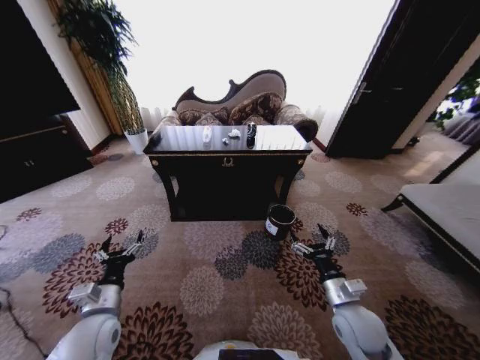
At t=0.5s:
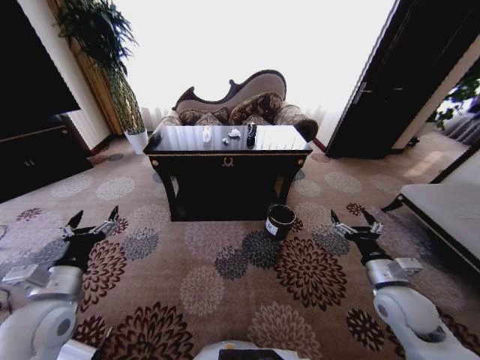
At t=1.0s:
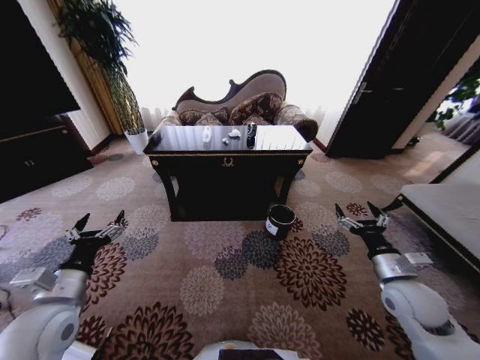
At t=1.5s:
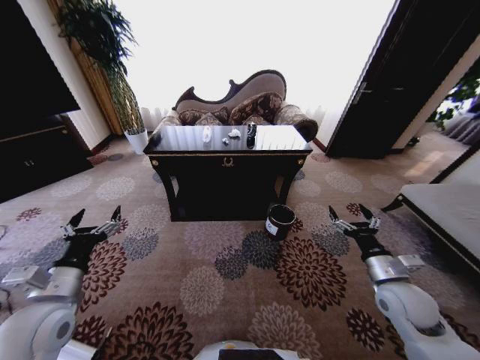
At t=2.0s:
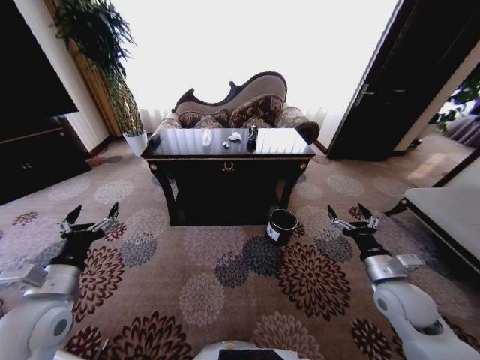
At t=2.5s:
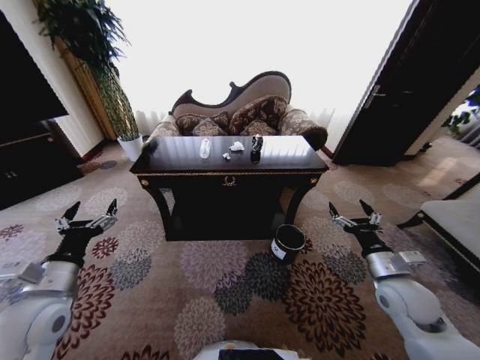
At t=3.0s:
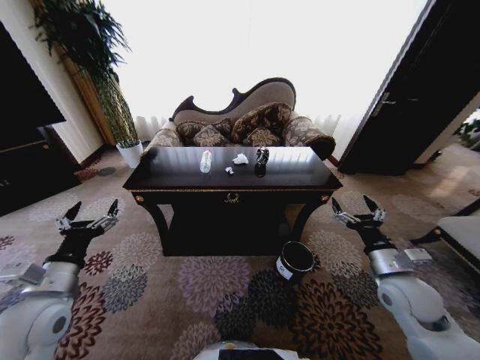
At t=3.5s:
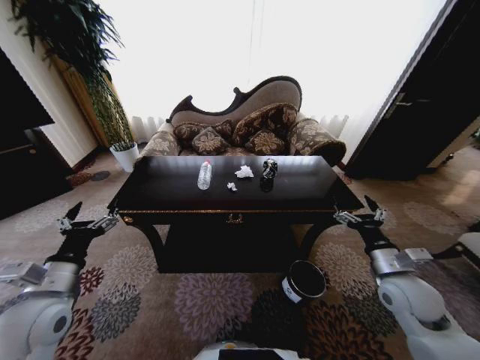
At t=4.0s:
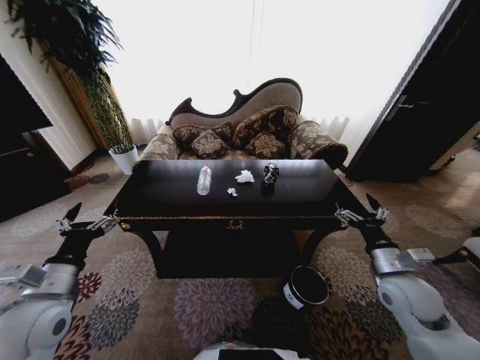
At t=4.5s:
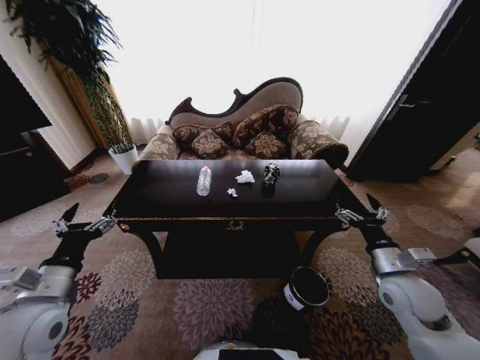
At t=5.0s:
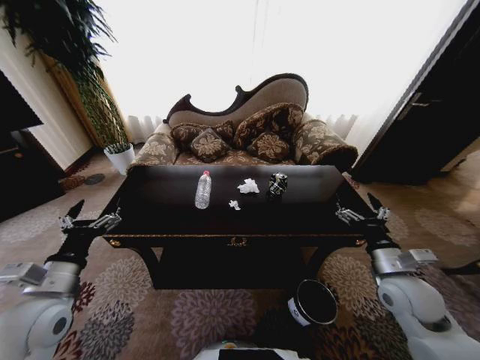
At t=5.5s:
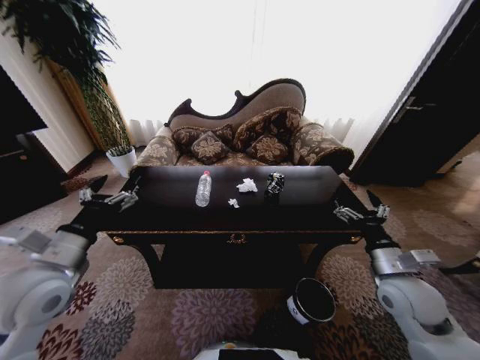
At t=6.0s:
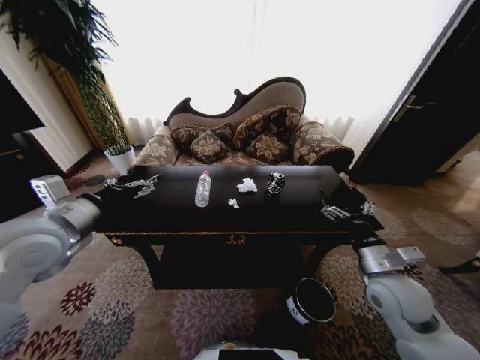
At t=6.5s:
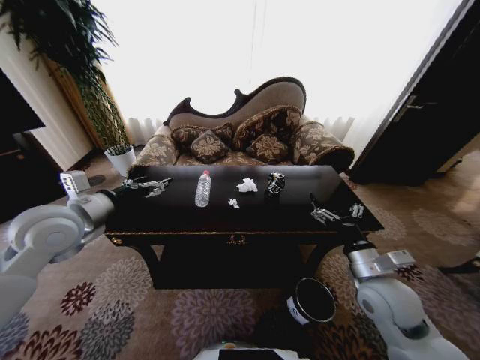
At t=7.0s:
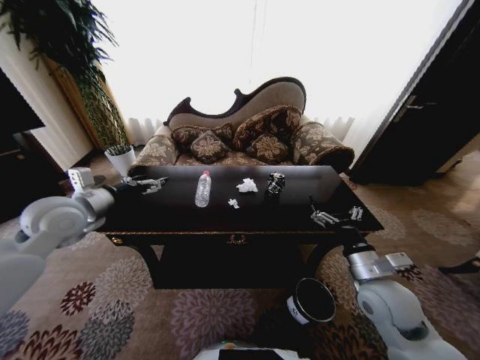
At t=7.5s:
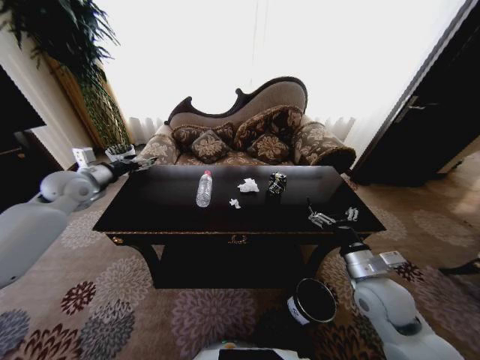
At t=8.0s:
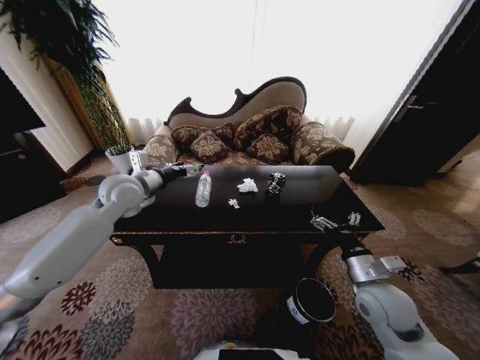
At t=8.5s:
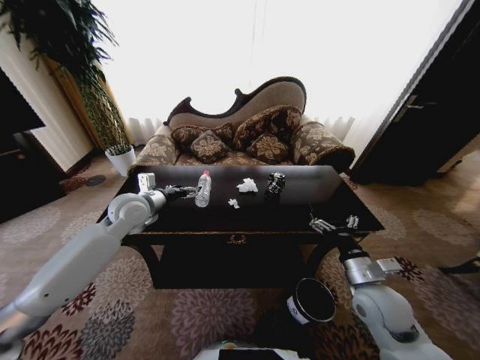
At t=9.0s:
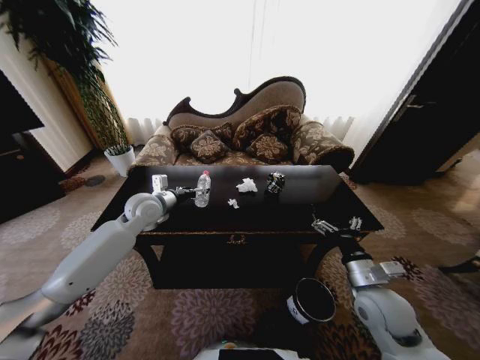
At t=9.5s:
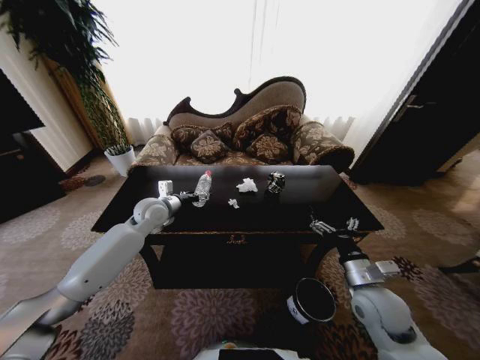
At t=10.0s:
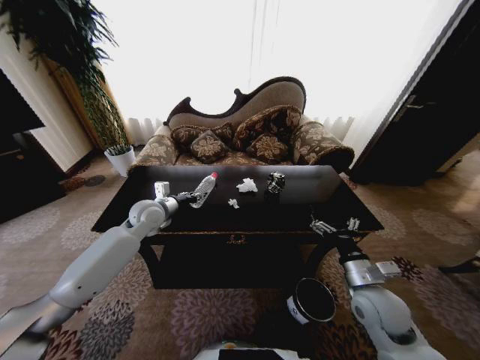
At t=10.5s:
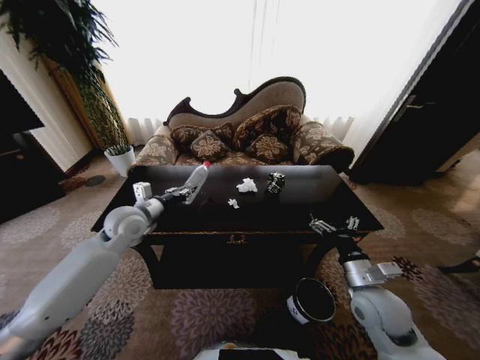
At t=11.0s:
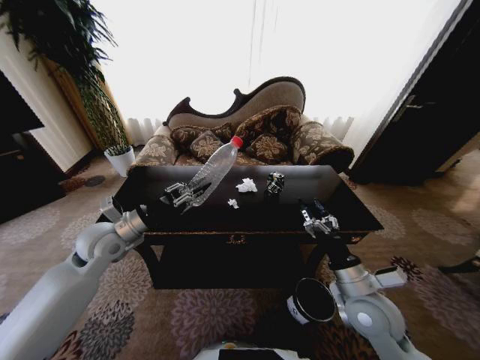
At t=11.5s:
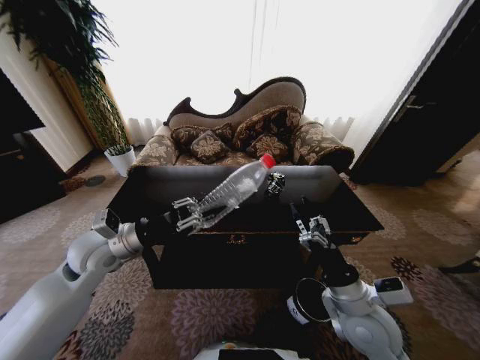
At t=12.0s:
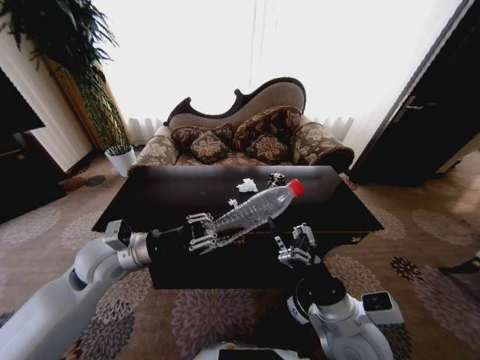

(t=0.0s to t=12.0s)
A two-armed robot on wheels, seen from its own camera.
Task of the whole recording: Move to the front of the table and place the trash on the table into the trash bin.
t=4.0s - t=6.0s: The left gripper heads upward and forward, covering some 15 cm.
t=6.0s - t=8.0s: The left gripper moves forward and to the right, approximately 20 cm.
t=8.0s - t=10.0s: The left gripper heads downward, covering about 10 cm, and closes its fingers.
t=10.0s - t=12.0s: The left gripper shifts about 15 cm backward; the right gripper is displaced to the left and backward by approximately 10 cm.

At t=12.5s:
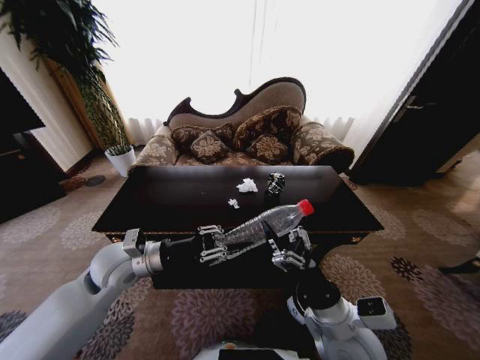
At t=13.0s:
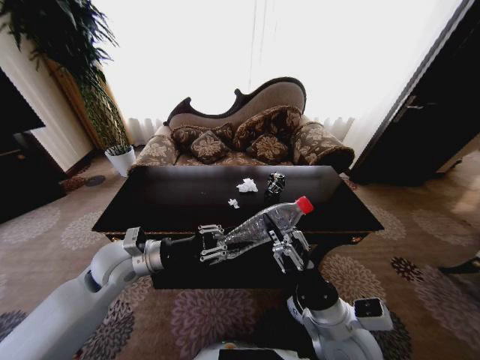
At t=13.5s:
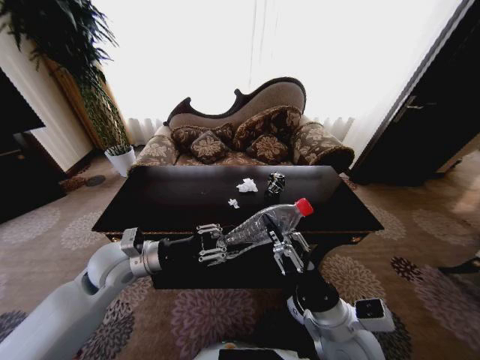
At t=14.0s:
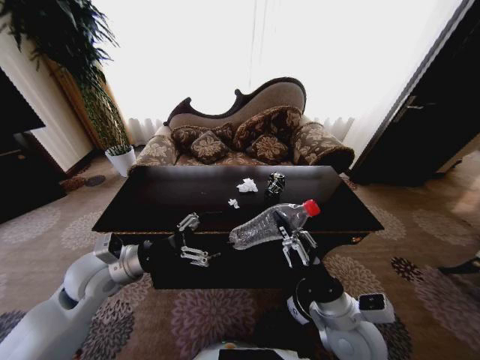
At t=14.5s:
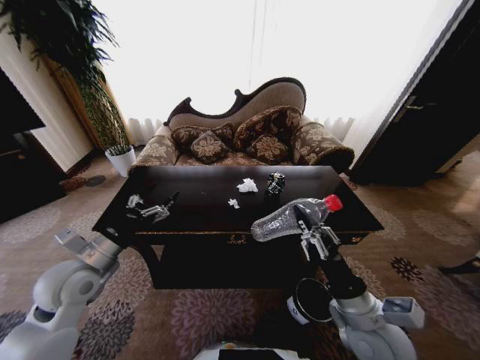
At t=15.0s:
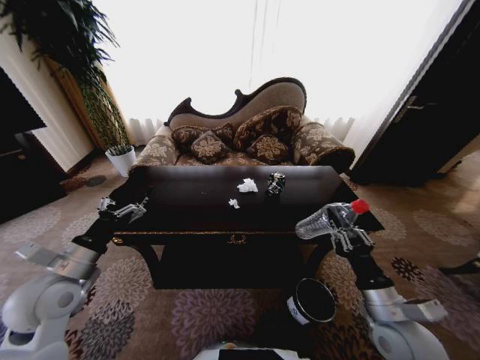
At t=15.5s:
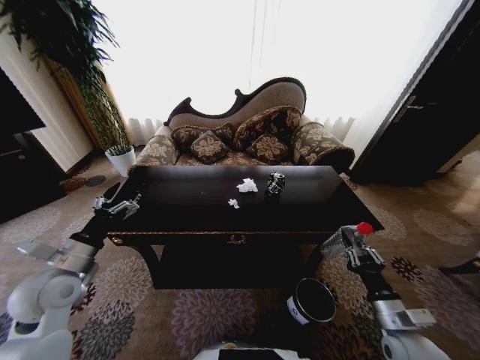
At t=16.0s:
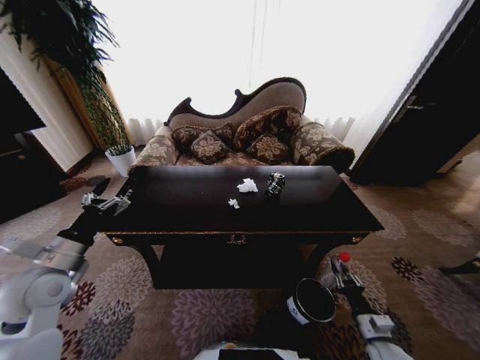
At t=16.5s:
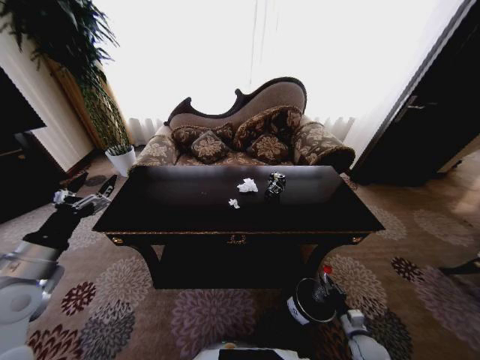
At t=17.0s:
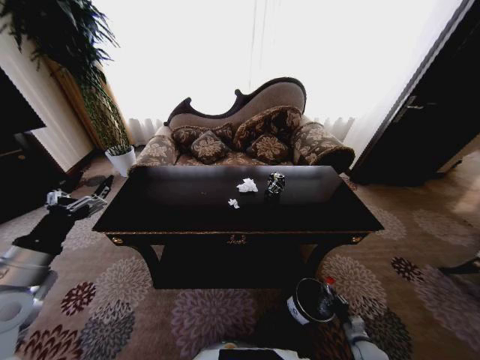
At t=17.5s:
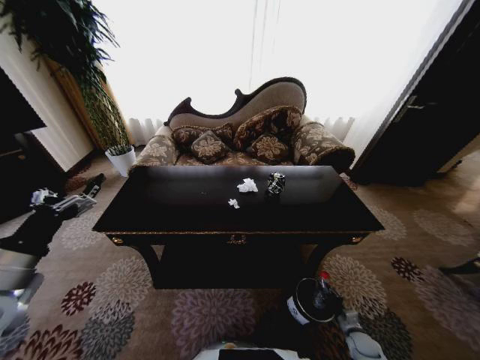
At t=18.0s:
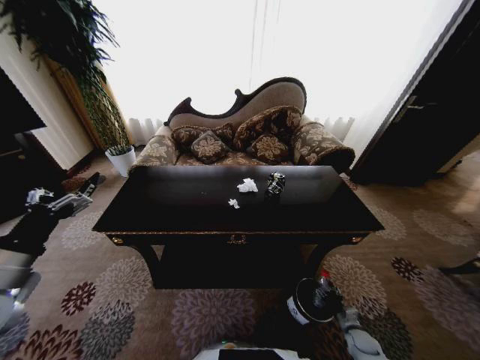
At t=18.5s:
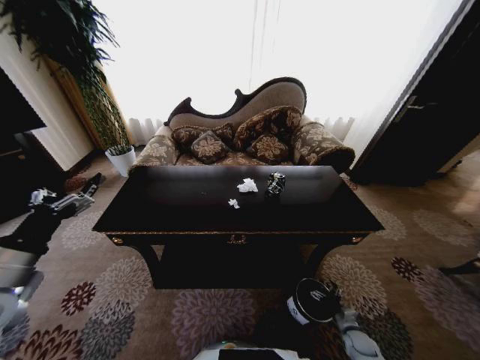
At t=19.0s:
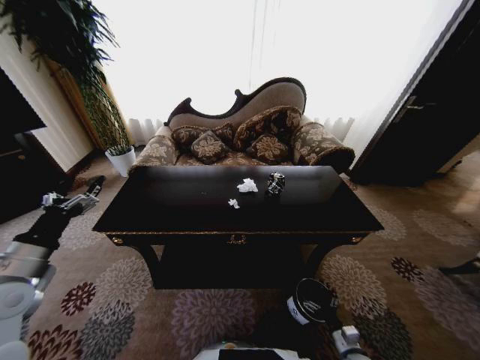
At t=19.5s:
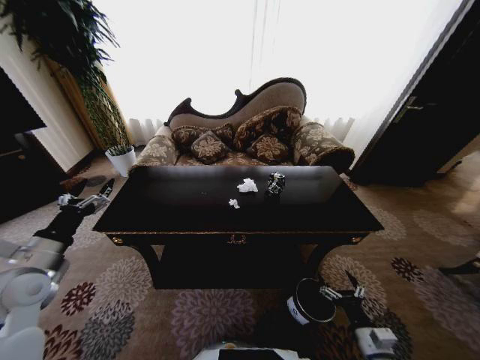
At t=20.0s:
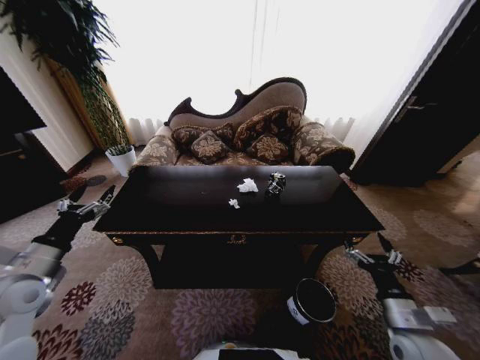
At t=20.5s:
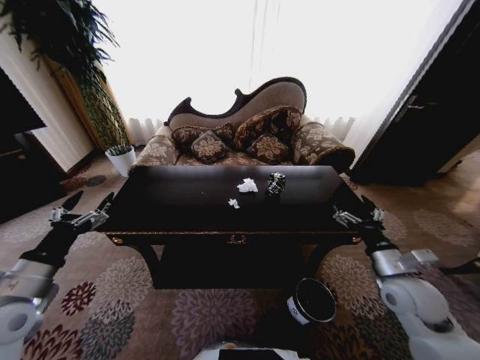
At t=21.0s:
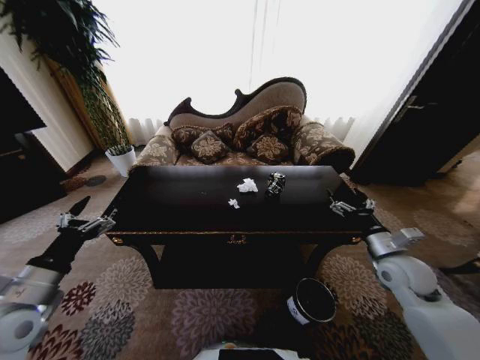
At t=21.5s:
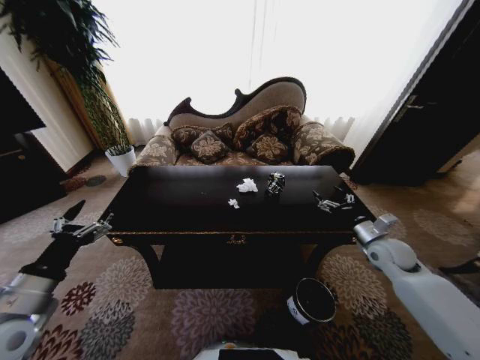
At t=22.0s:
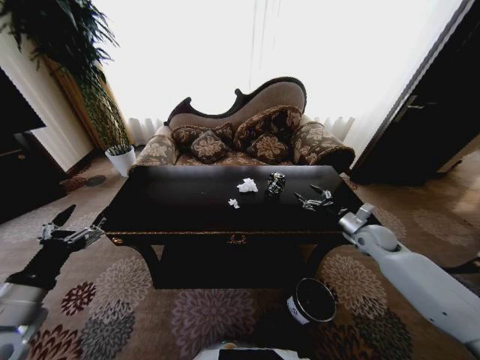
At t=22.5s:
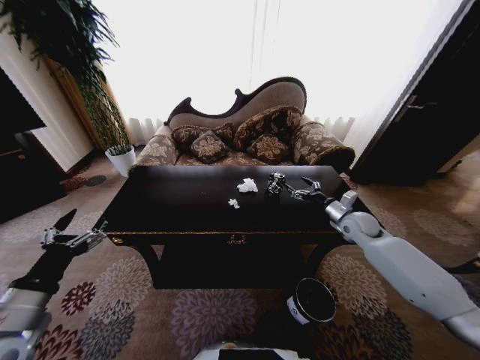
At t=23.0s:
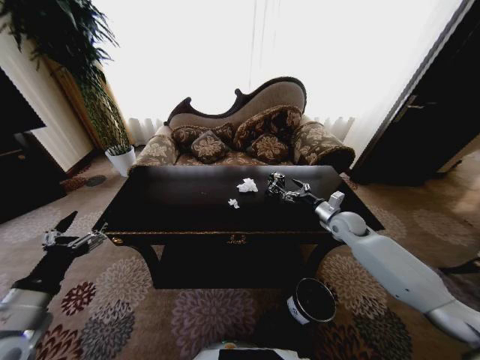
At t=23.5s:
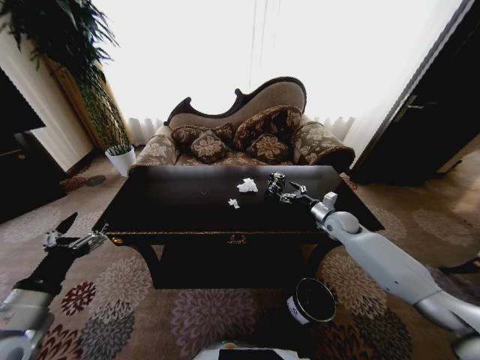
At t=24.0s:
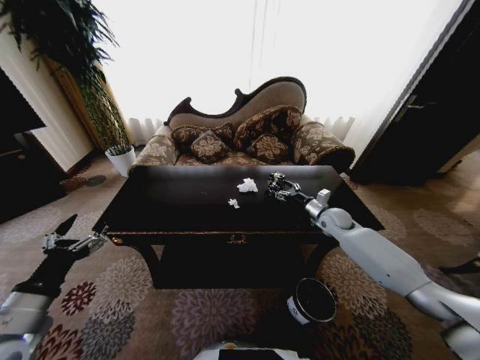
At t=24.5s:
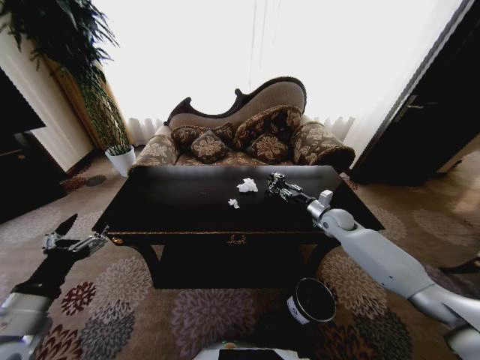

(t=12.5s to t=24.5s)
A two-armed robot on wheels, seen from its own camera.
Task of the whole recording: Move to the front of the table and place the trash on the table into the trash bin.
t=12.5s - t=14.5s: The right gripper is displaced to the right by about 5 cm, and closes its fingers, while the left gripper heads to the left, covering roughly 10 cm, and opens up.
t=14.5s - t=16.5s: The right gripper travels downward and to the right by about 35 cm; the left gripper moves to the left, some 5 cm.
t=16.5s - t=18.5s: The right gripper heads downward, covering some 5 cm, and opens its fingers.
t=18.5s - t=20.5s: The right gripper heads upward, covering approximately 35 cm.
t=20.5s - t=22.5s: The right gripper shifts some 20 cm forward, while the left gripper changes place by some 5 cm.
t=22.5s - t=24.5s: The right gripper changes place by about 5 cm, and closes up.

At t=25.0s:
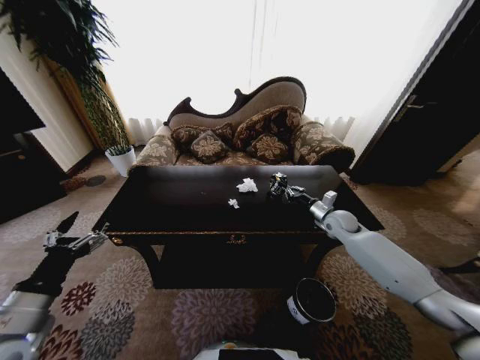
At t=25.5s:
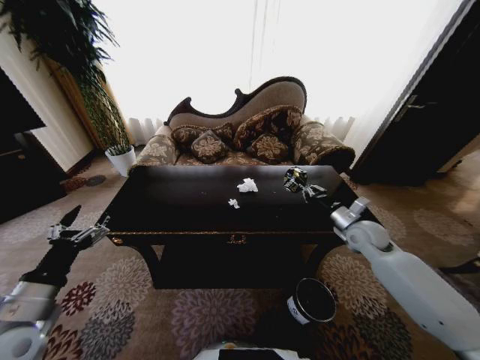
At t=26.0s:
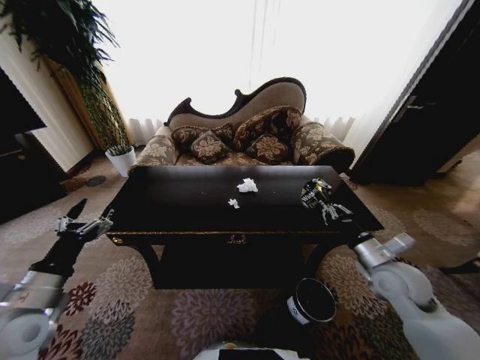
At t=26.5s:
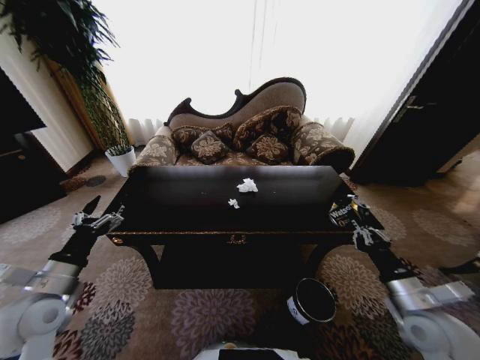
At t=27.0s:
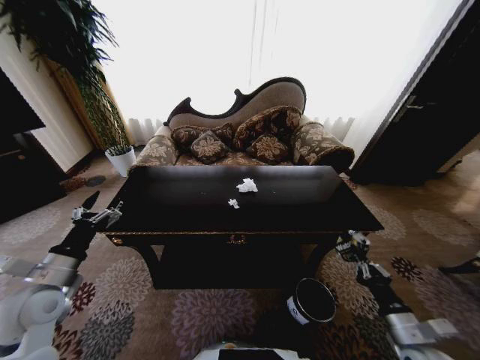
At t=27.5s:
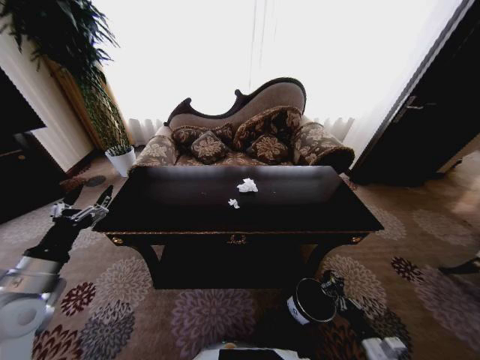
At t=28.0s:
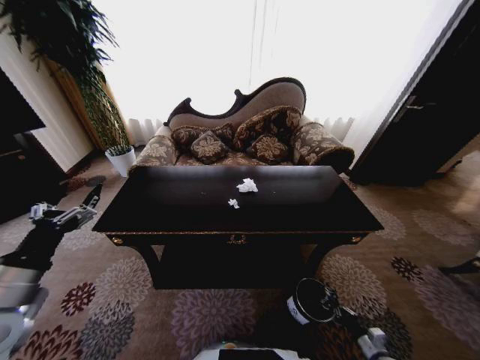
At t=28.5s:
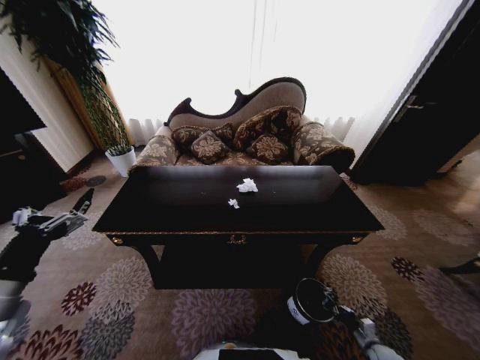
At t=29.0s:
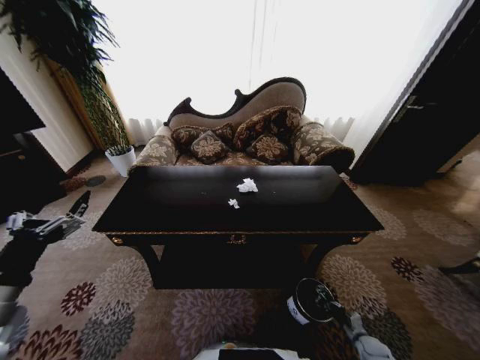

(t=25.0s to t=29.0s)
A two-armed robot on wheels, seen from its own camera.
Task of the whole recording: Move to the front of the table and place the trash on the table into the trash bin.
t=25.0s - t=27.0s: The right gripper goes about 35 cm backward. Meanwhile the left gripper is displaced forward by about 10 cm.
t=27.0s - t=29.0s: The left gripper shifts roughly 10 cm backward and upward, while the right gripper goes some 30 cm downward.
